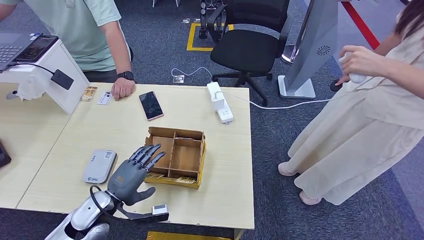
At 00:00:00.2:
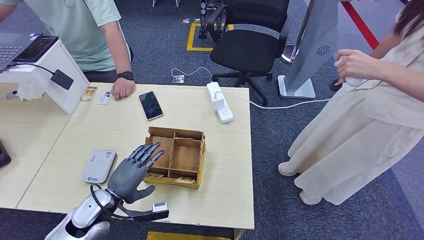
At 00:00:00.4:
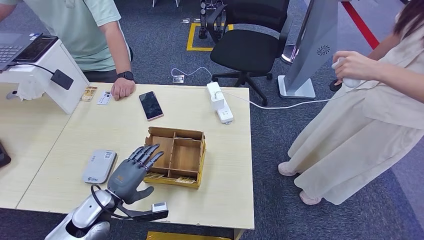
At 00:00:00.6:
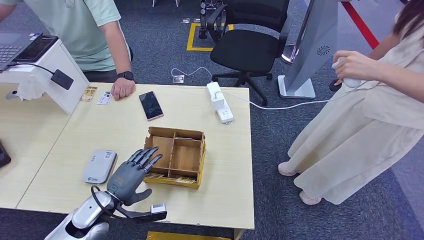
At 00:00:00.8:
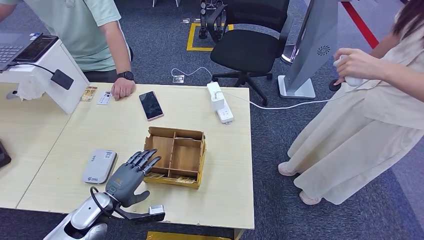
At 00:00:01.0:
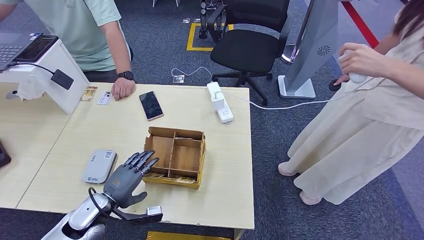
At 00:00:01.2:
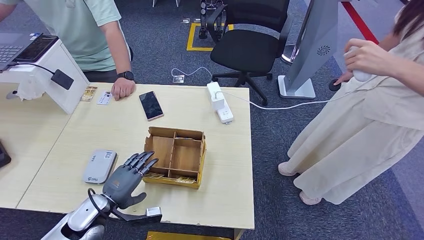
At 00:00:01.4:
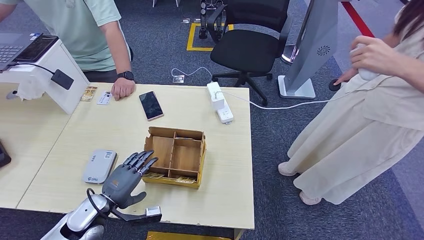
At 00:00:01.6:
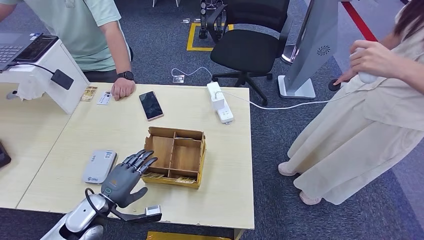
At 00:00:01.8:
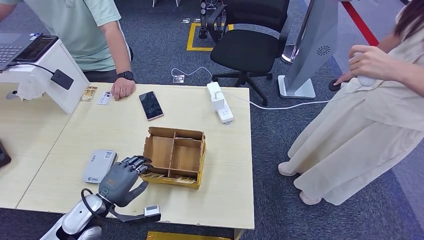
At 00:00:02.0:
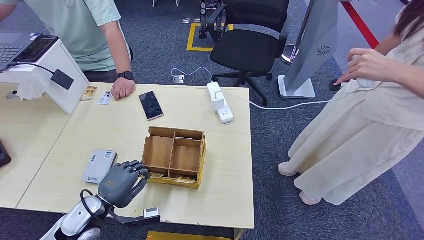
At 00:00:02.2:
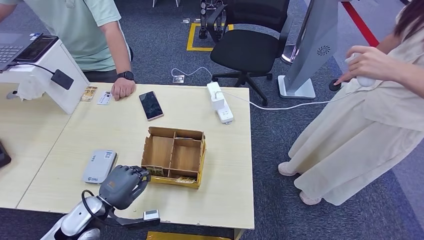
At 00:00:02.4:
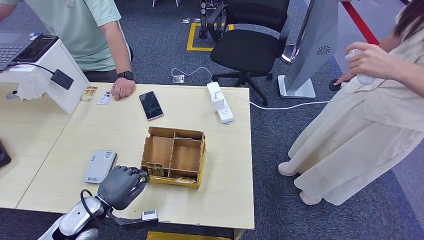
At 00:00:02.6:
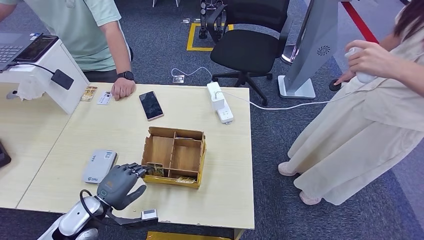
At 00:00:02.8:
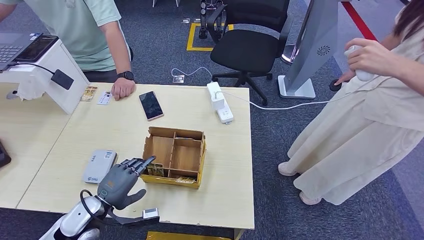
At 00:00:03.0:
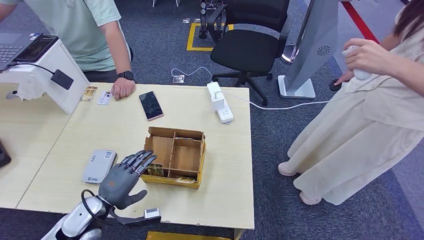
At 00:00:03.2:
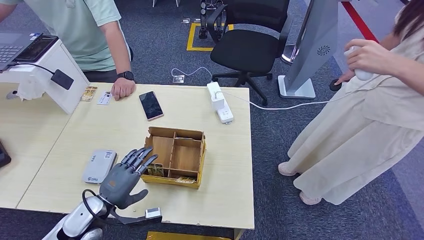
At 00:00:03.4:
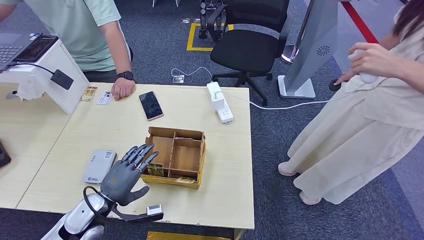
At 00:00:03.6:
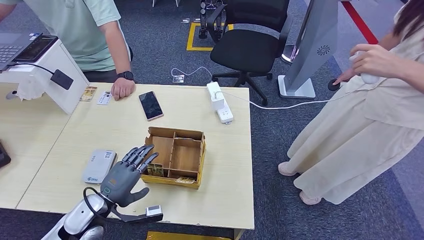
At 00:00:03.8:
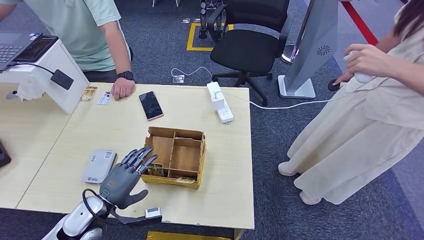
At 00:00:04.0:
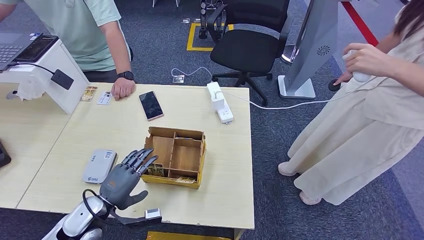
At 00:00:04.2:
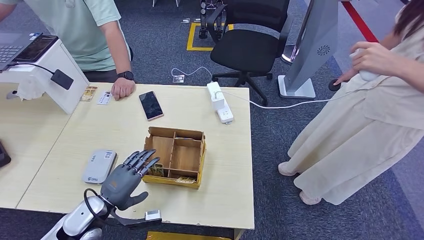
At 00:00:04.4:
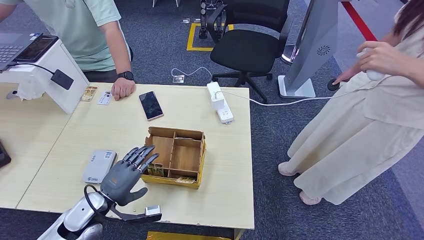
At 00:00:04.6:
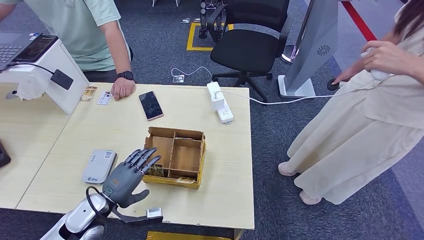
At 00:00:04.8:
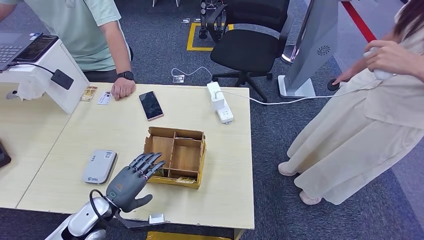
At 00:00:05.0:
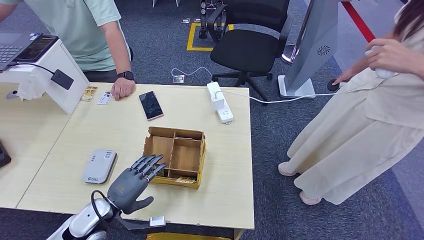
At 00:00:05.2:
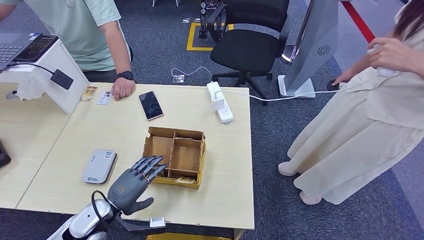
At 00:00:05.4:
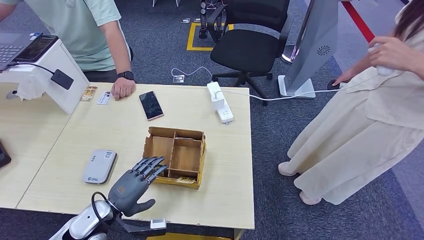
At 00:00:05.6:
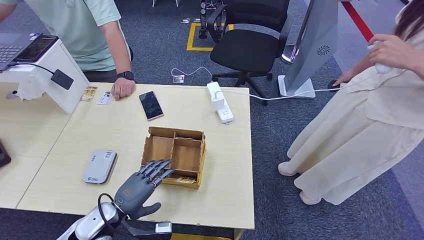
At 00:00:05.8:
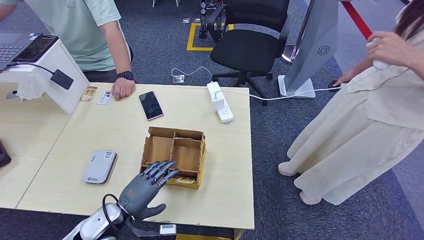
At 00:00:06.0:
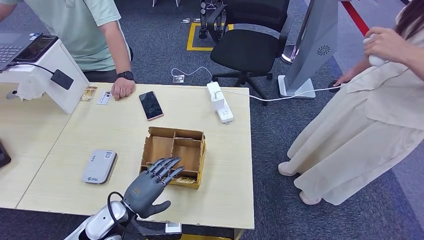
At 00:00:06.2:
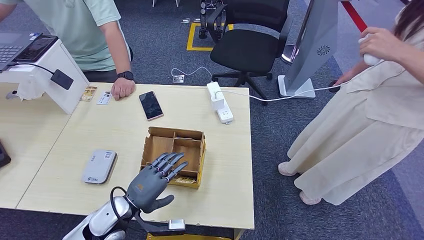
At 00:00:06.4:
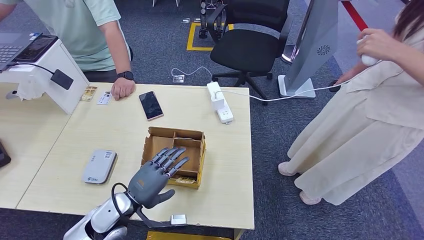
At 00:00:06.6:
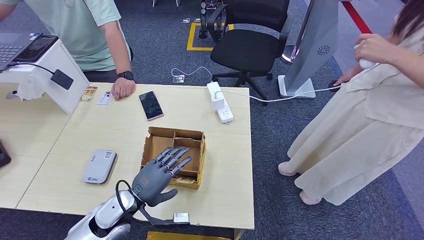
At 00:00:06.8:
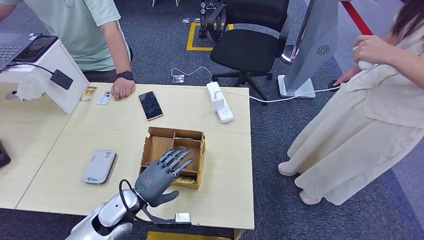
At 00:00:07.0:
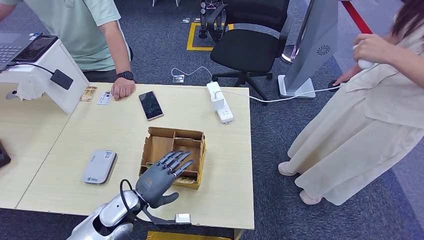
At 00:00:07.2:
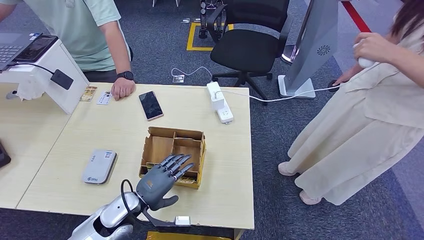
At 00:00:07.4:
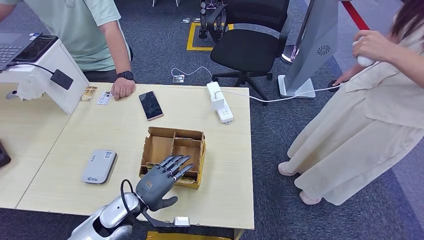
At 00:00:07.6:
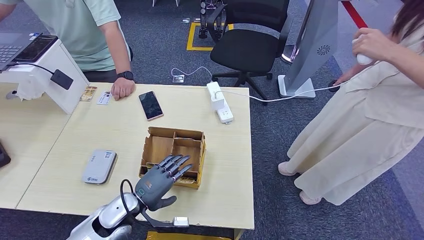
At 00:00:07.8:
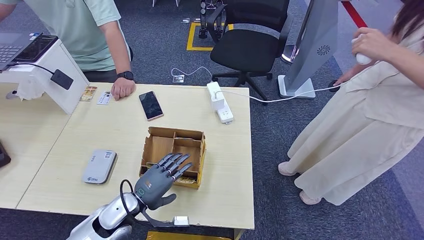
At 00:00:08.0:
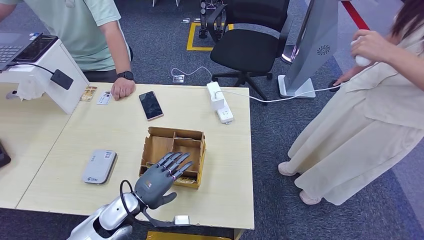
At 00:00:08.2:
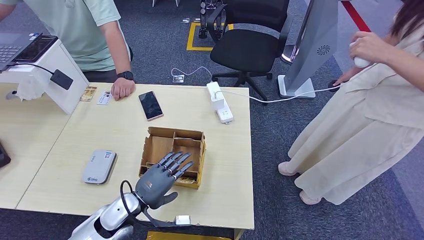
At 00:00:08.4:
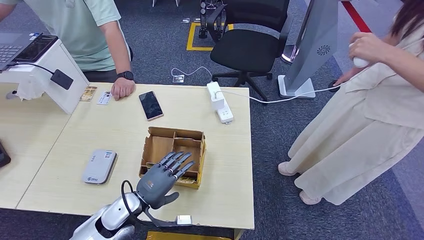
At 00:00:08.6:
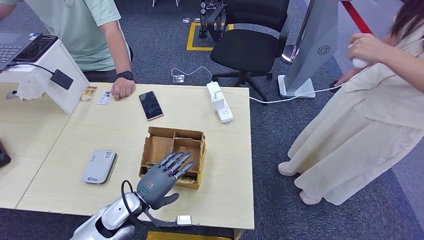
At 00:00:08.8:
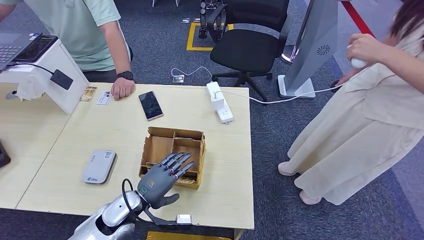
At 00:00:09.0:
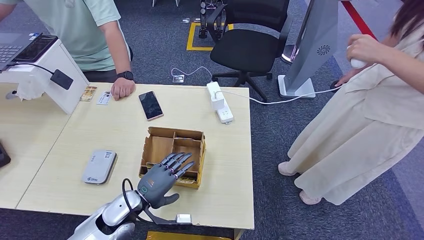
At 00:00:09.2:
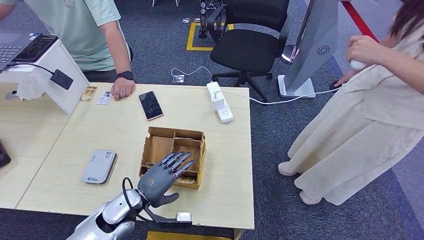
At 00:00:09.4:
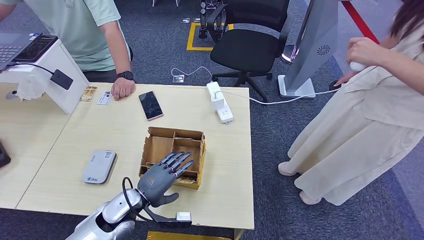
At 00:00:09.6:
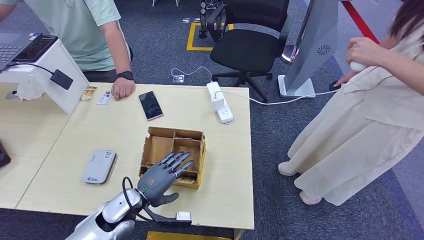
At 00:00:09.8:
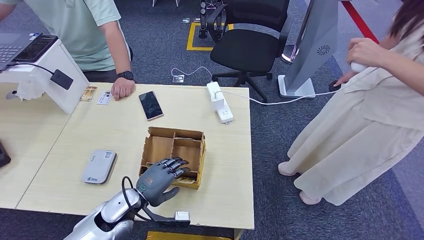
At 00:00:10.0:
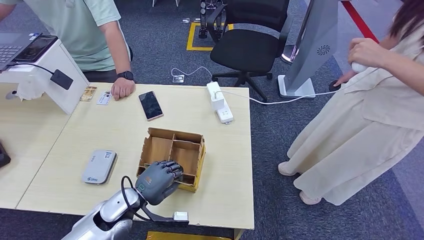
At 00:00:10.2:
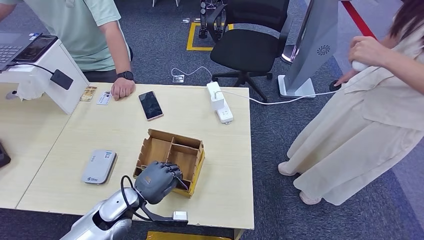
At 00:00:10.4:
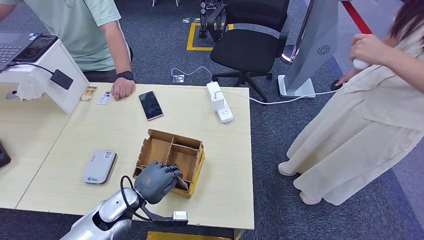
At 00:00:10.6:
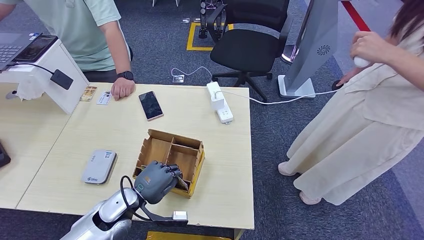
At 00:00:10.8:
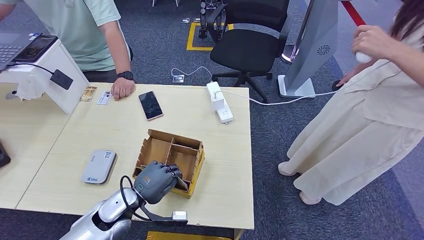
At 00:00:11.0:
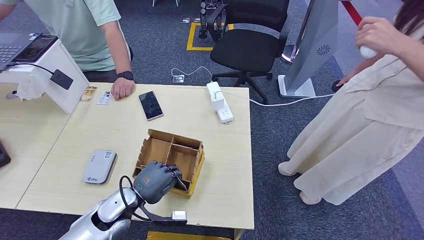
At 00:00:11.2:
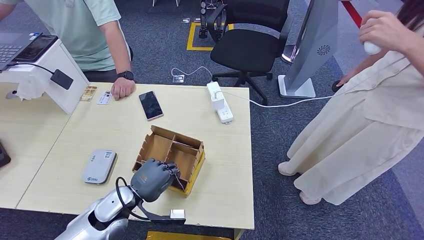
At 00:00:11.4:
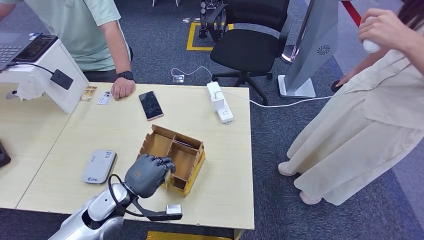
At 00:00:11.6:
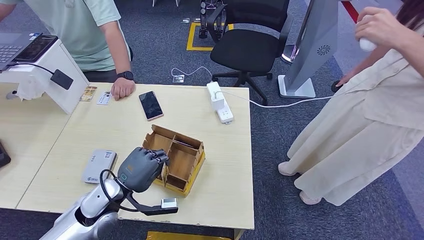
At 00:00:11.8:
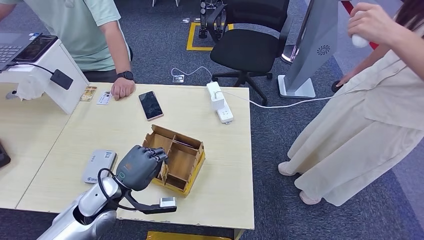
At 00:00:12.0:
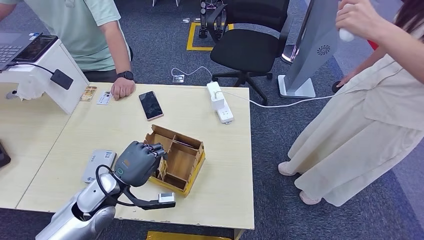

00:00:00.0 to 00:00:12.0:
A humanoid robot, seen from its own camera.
Step, 00:00:00.0 to 00:00:11.2: Pick up the room key from the key card box.
00:00:00.0 to 00:00:03.0: There are only small adjustments of the hands.
00:00:03.0 to 00:00:04.4: Both hands stay about where they are.
00:00:04.4 to 00:00:06.0: The left hand shifts roughly 5 cm to the right.
00:00:06.0 to 00:00:09.0: The hands move only a little.
00:00:09.0 to 00:00:10.4: Both hands stay put.
00:00:10.4 to 00:00:12.0: The left hand is displaced upward by approximately 5 cm.

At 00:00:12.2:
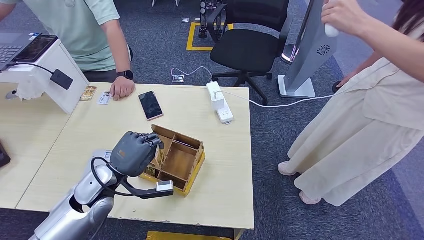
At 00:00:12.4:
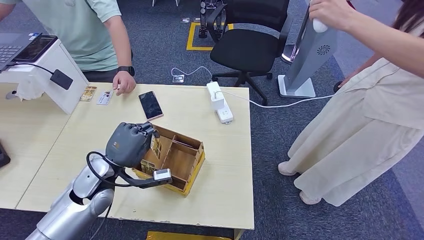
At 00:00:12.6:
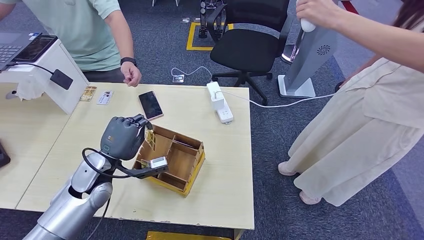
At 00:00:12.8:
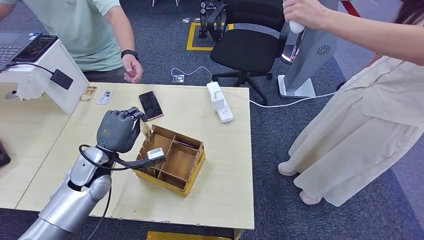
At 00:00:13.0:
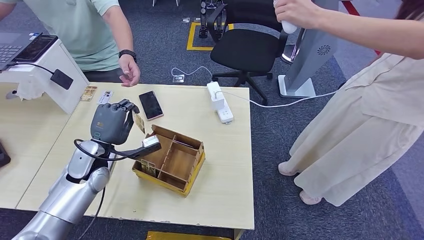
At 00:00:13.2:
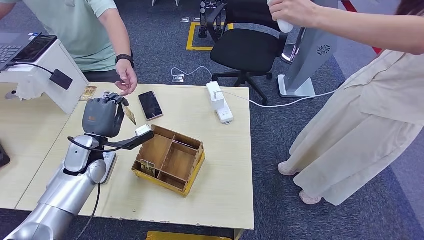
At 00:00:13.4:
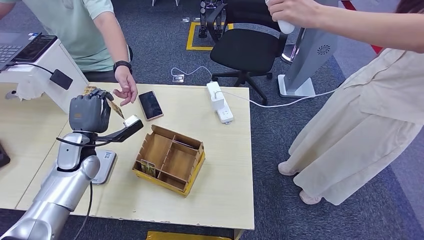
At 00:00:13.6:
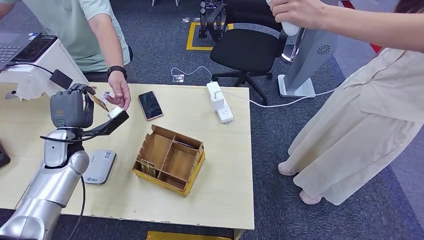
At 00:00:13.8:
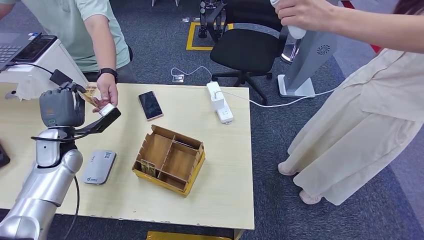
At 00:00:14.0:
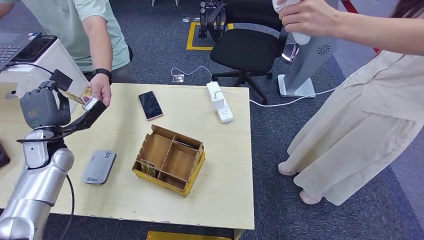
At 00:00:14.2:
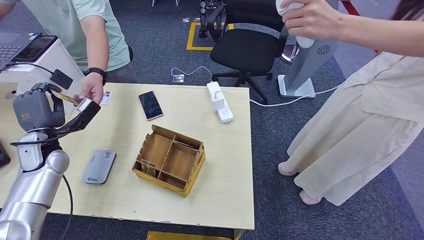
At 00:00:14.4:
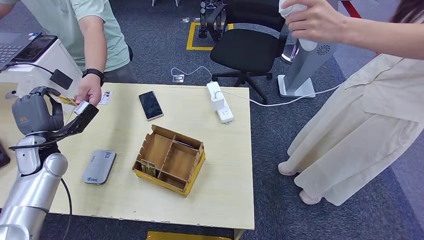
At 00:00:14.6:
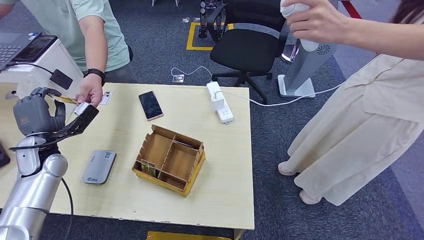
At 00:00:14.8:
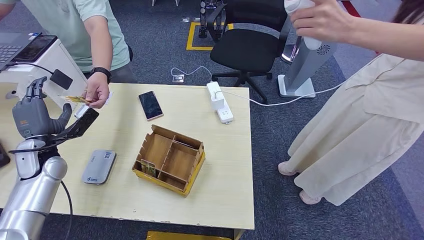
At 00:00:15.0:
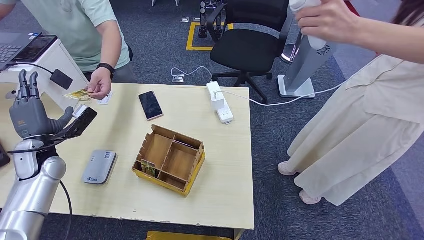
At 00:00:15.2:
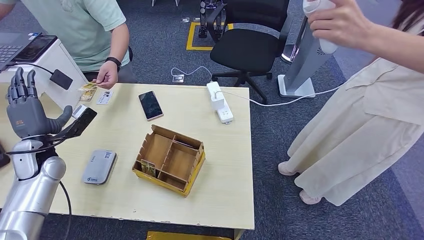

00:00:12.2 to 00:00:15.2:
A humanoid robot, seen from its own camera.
Step, 00:00:12.2 to 00:00:15.2: Hand the room key to the person.
00:00:13.8 to 00:00:15.2: There are only small adjustments of the hands.
